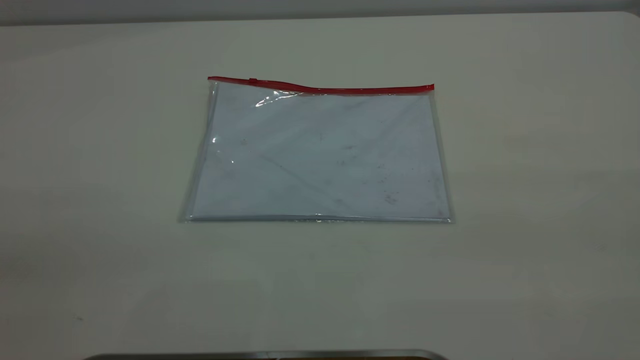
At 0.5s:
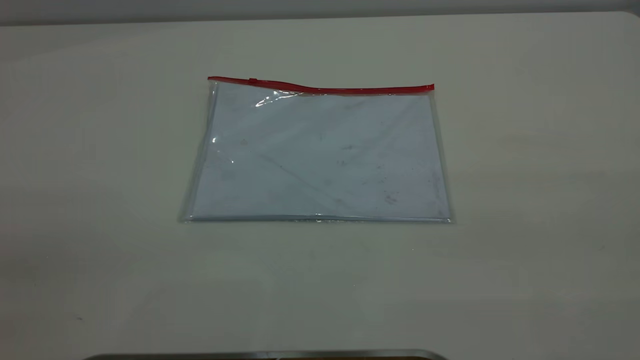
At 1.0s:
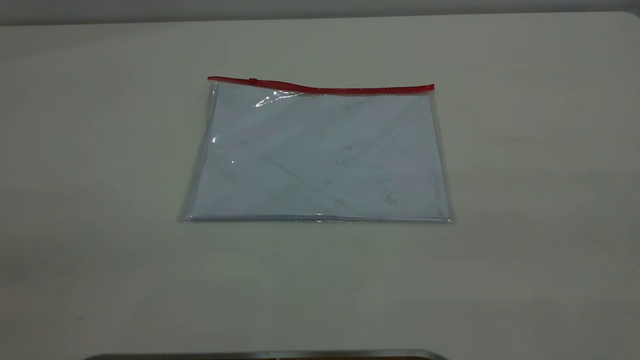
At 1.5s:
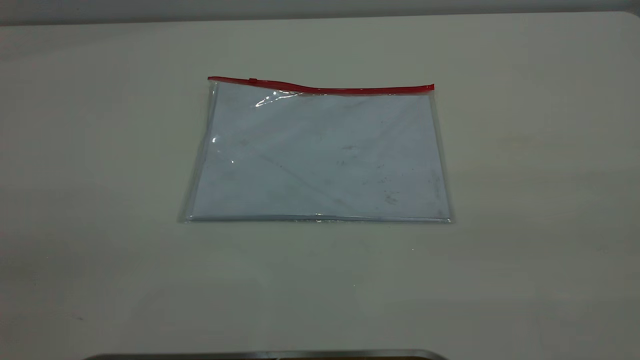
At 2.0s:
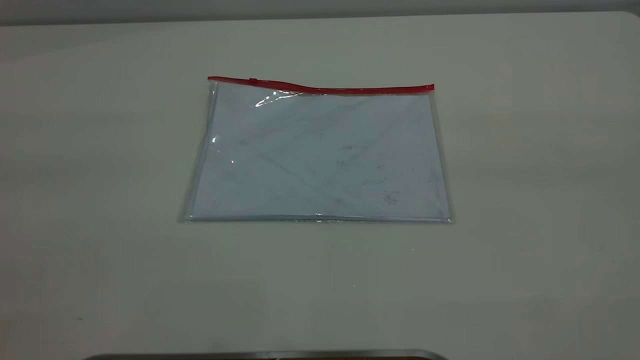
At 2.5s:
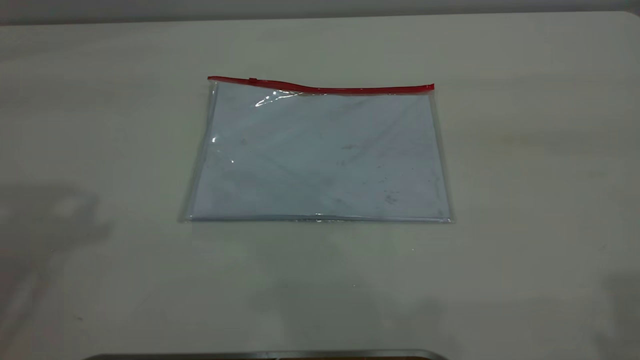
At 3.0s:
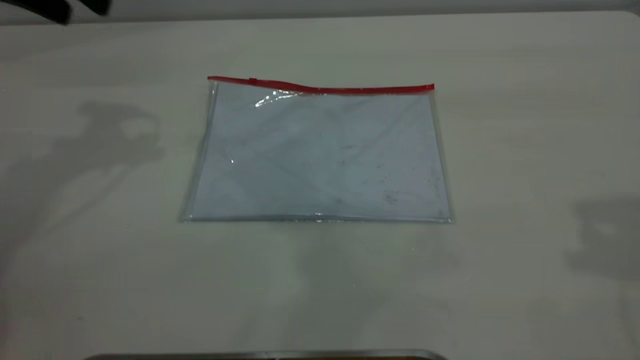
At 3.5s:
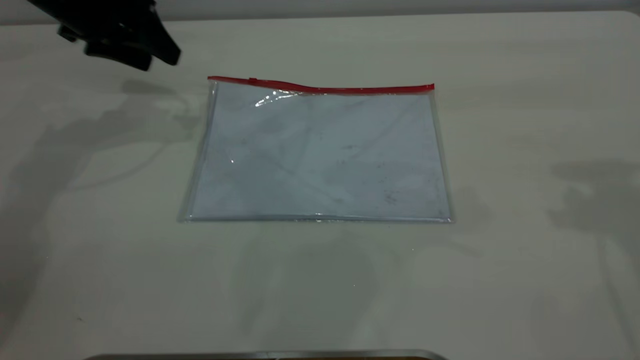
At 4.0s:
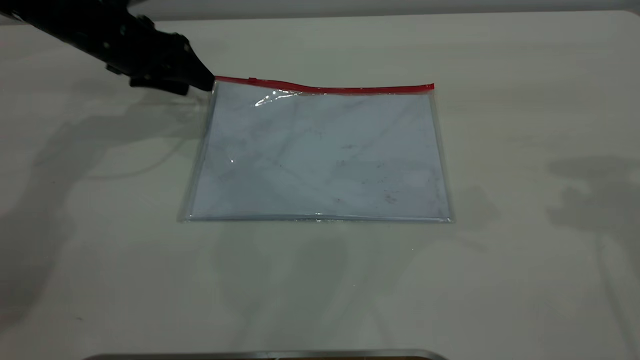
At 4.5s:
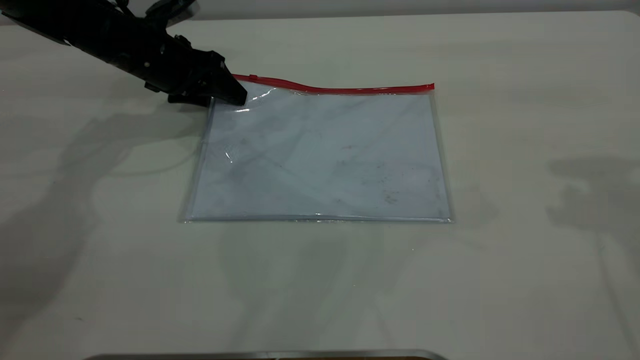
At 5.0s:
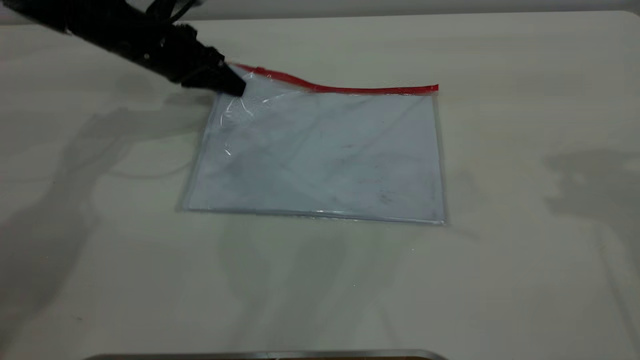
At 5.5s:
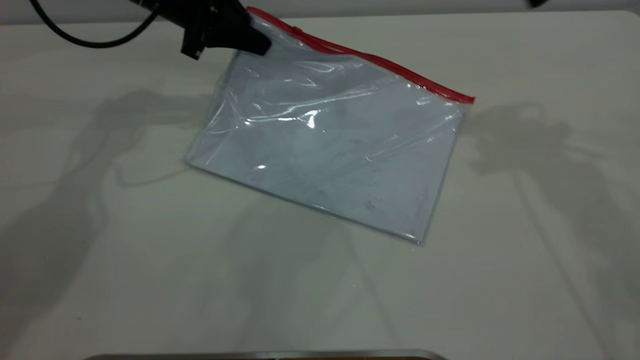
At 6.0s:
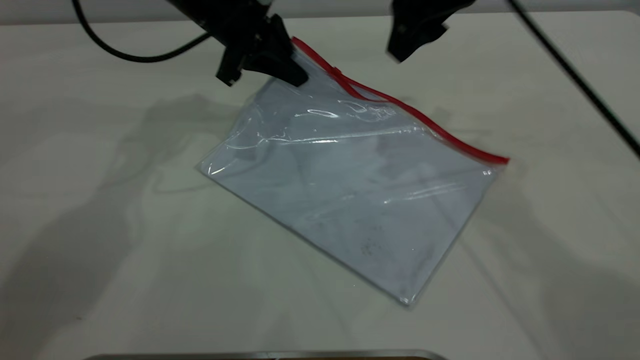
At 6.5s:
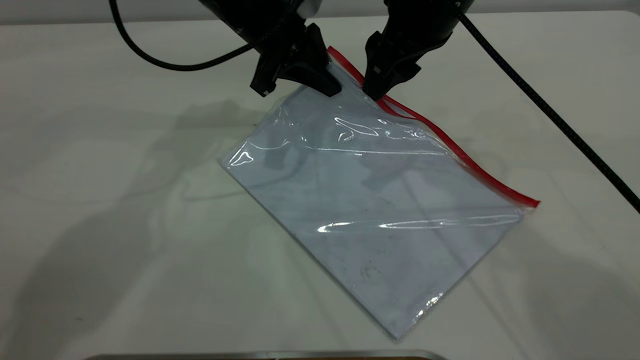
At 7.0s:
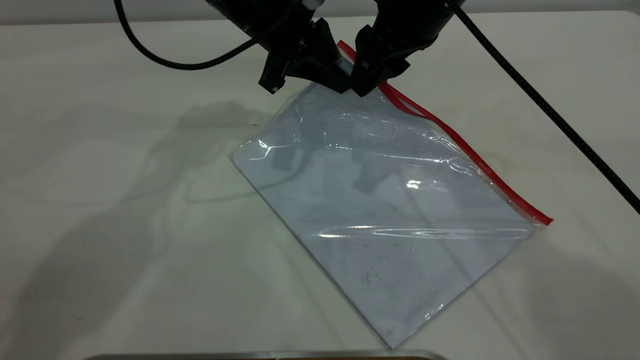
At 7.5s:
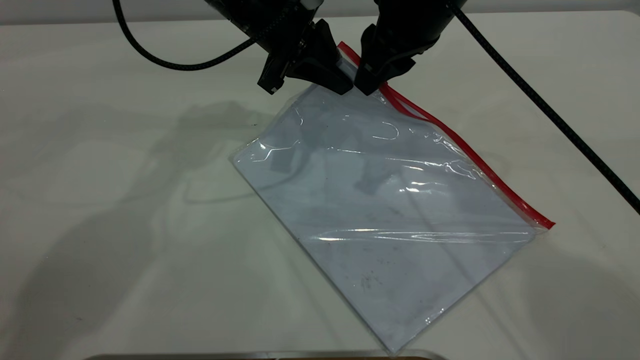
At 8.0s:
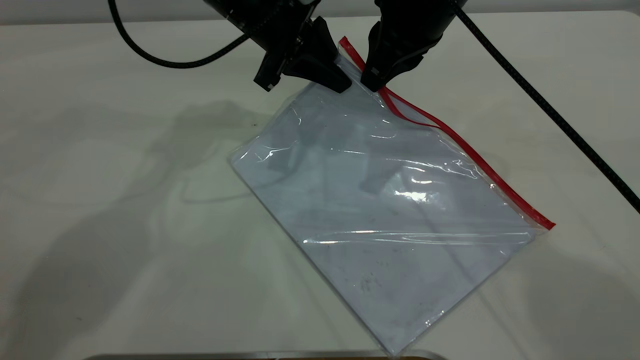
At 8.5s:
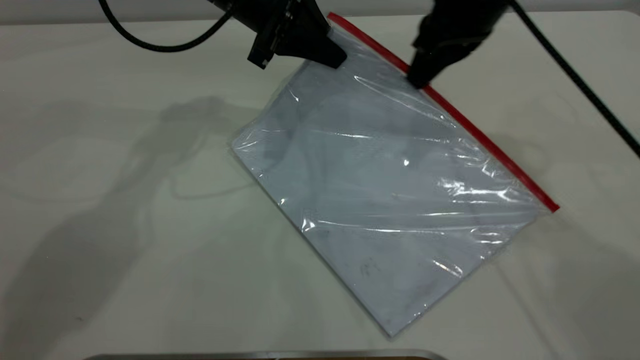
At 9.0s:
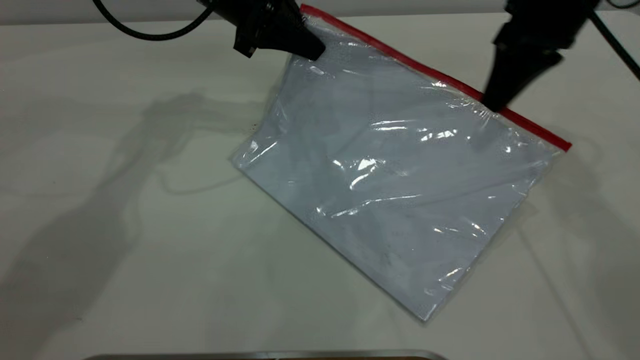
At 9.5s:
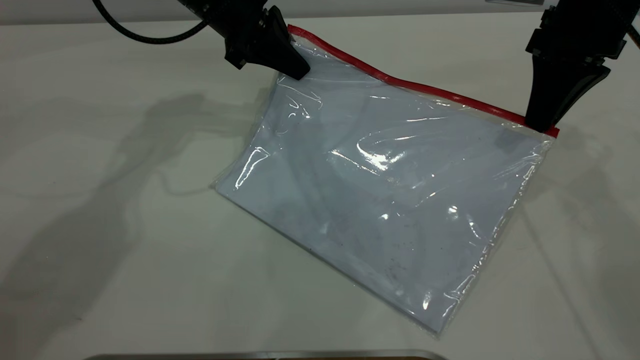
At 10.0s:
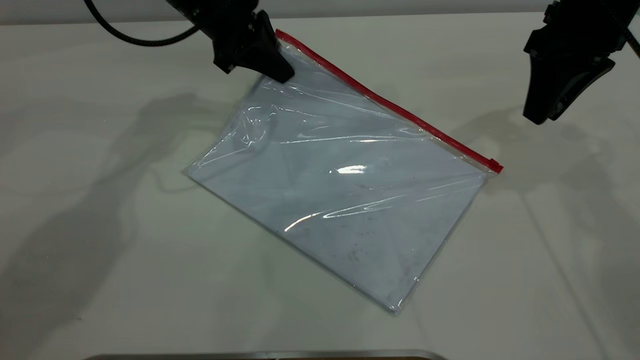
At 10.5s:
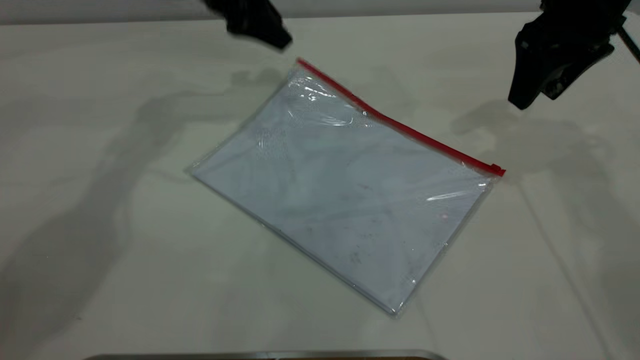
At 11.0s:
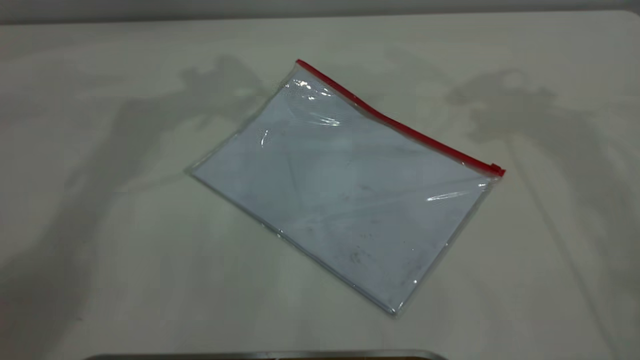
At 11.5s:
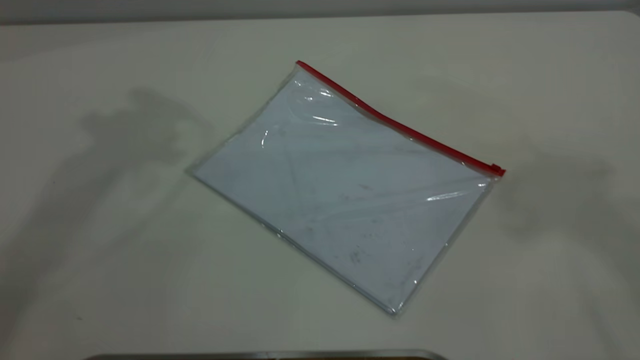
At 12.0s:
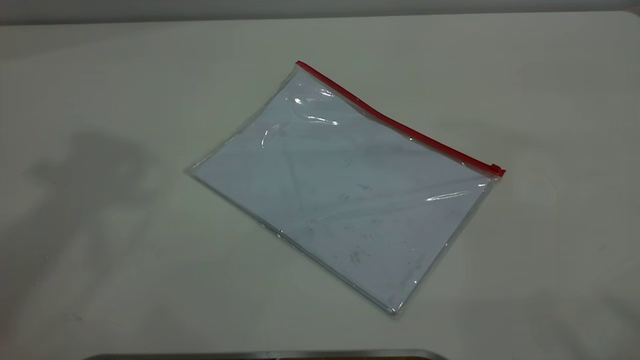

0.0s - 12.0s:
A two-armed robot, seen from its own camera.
Step, 0.0s - 5.0s: Pick up the transparent plastic bag with the left gripper.
Step, 5.5s - 9.5s: Pulling up the zipper on the transparent plastic bag with the right gripper to close it.
2.0s - 4.0s: The left gripper goes about 50 cm forward and downward.
4.0s - 6.0s: The right gripper goes roughly 25 cm to the left, forward and downward; the left gripper goes approximately 15 cm to the right, and closes up.
6.0s - 8.0s: The right gripper closes its fingers.
8.0s - 10.0s: The left gripper is displaced to the left by some 5 cm. Meanwhile the right gripper is displaced to the right by approximately 15 cm, and opens.
10.0s - 12.0s: The two grippers go roughly 50 cm upward and backward. The left gripper opens up.
